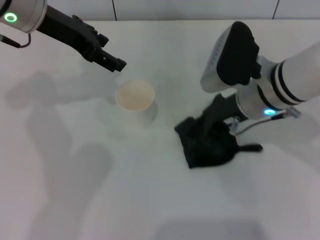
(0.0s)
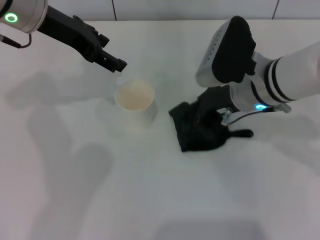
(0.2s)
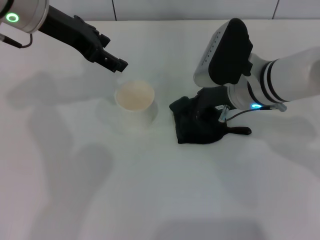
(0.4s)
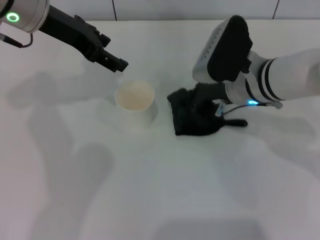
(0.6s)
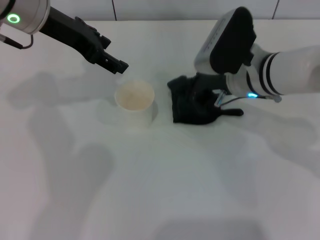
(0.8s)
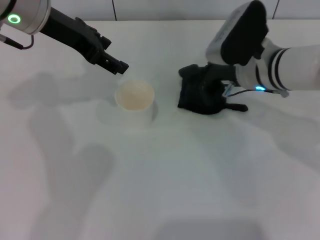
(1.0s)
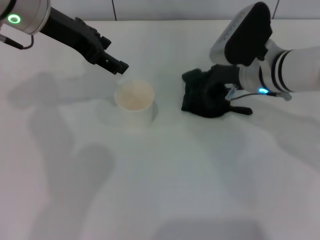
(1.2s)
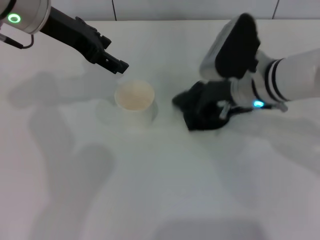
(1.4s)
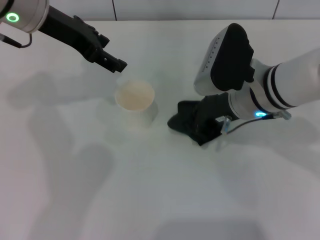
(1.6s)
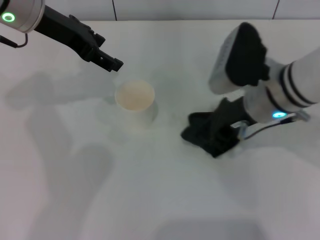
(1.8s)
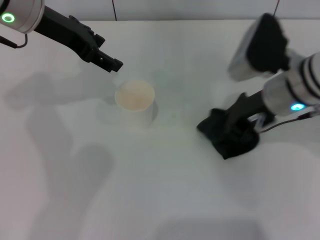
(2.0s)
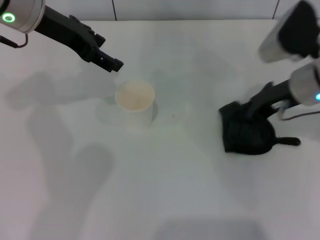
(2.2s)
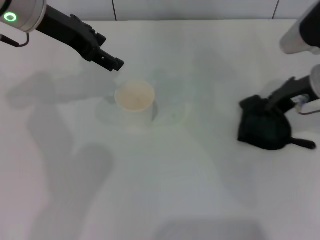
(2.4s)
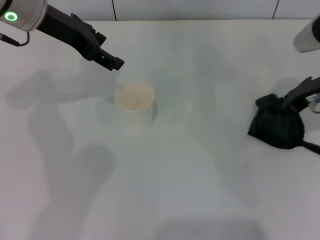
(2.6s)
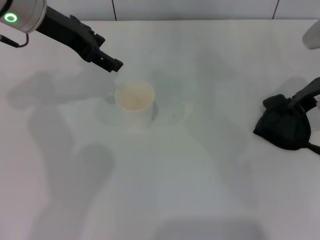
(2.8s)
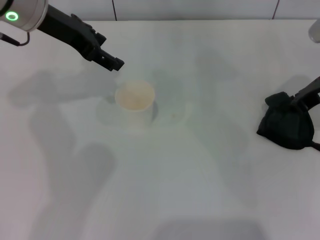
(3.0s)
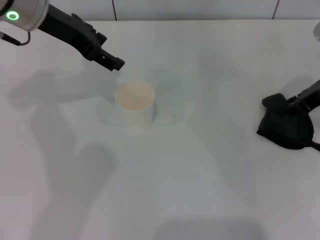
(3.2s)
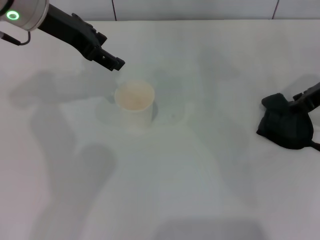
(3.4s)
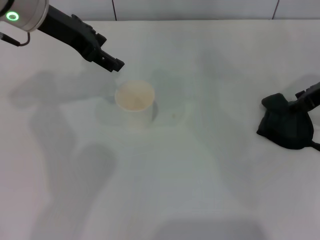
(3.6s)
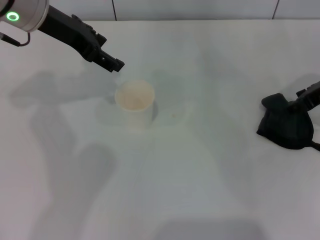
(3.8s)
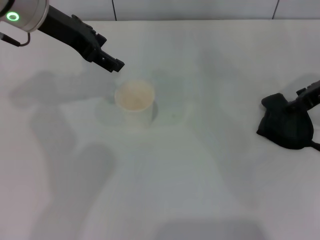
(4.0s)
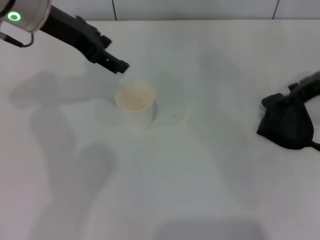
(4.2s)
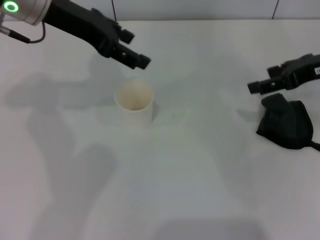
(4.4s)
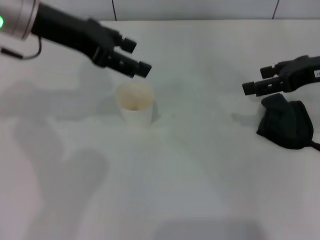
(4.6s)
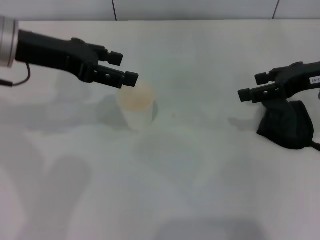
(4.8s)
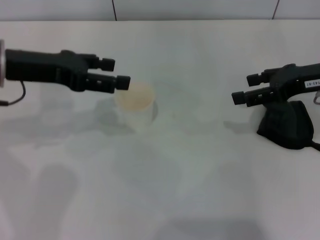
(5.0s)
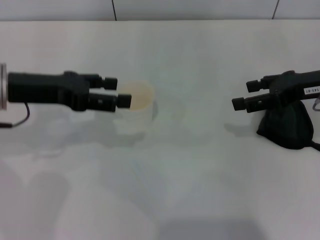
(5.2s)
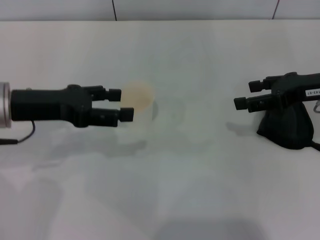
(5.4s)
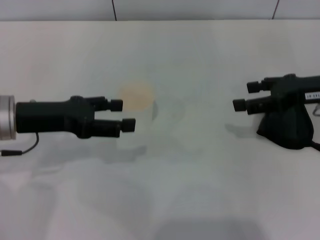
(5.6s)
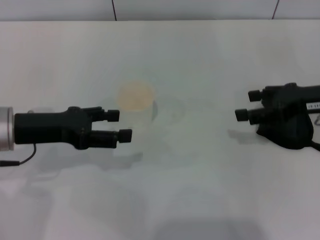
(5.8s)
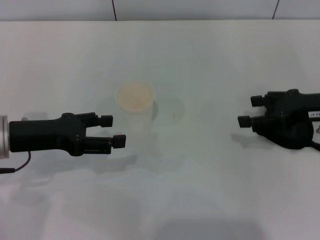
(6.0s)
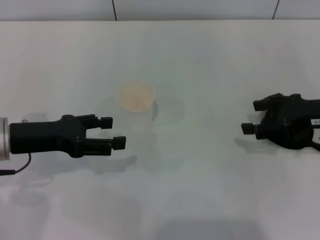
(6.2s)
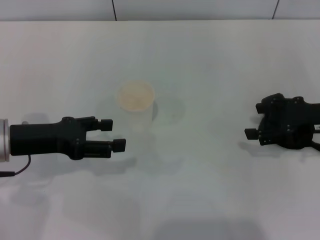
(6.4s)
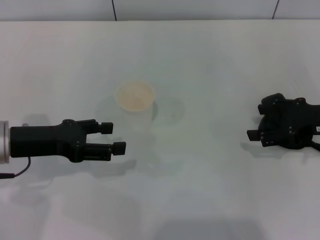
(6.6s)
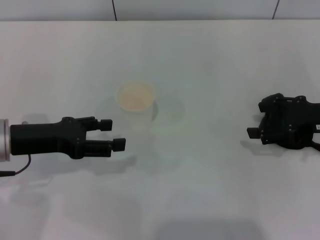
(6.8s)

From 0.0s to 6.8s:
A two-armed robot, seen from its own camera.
Step, from 0.0s to 2.8s: Wipe the stains off the table with the right gripper.
Step, from 3.0s to 4.4s: Place the rag on the table with the right gripper.
From 1.4s to 2.8s: The right gripper goes roughly 15 cm to the right.
From 2.8s to 4.0s: The right gripper opens.
From 4.0s to 5.4s: The left gripper heads backward, downward and to the left, covering about 15 cm.
From 5.4s to 6.8s: The right gripper changes place by about 5 cm.

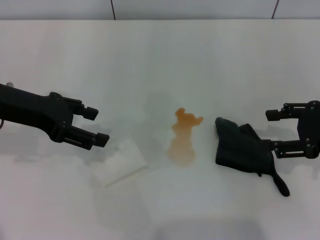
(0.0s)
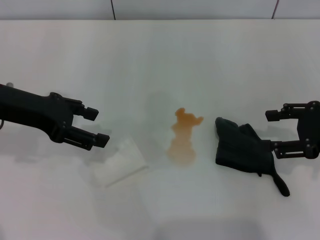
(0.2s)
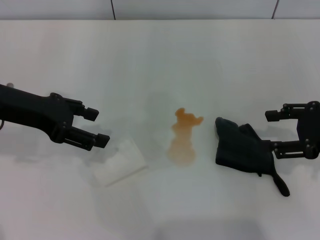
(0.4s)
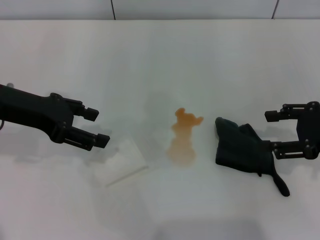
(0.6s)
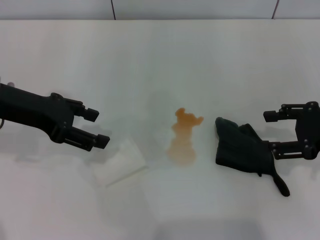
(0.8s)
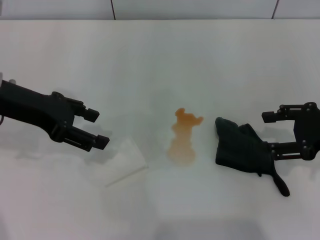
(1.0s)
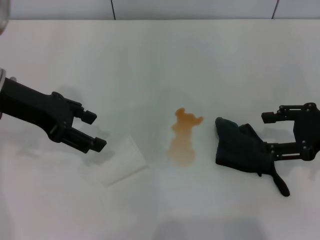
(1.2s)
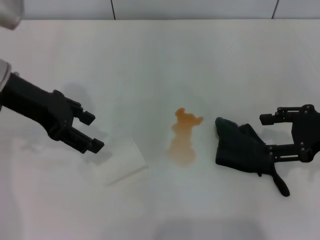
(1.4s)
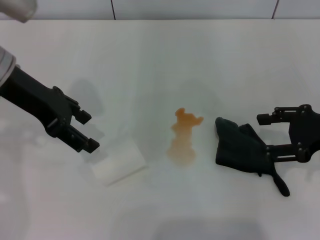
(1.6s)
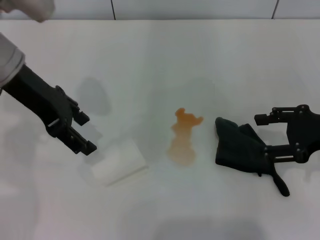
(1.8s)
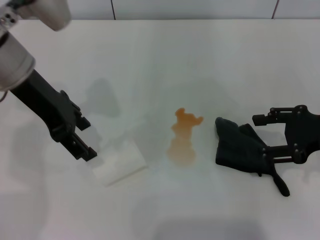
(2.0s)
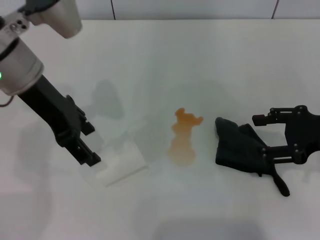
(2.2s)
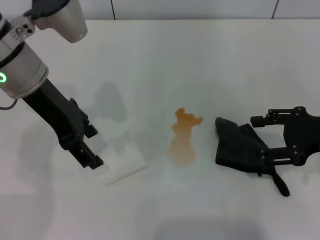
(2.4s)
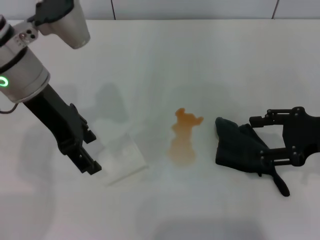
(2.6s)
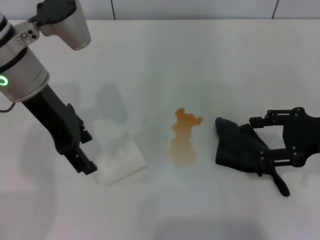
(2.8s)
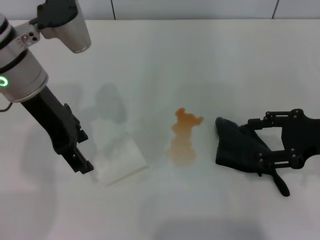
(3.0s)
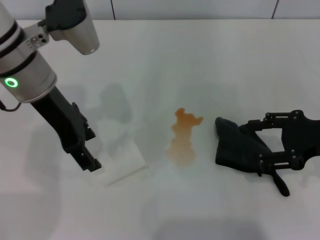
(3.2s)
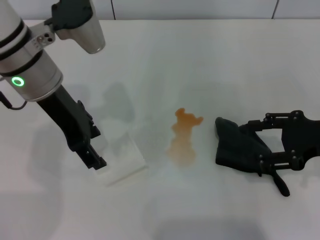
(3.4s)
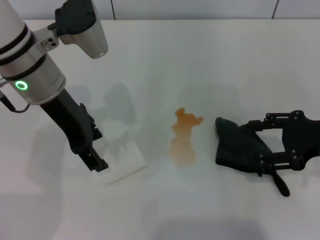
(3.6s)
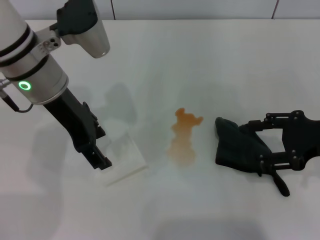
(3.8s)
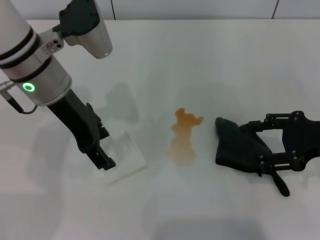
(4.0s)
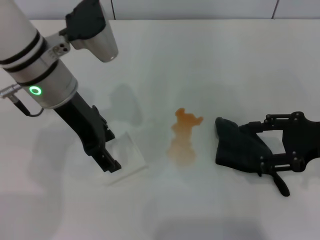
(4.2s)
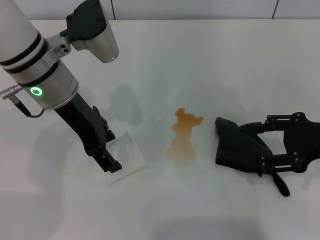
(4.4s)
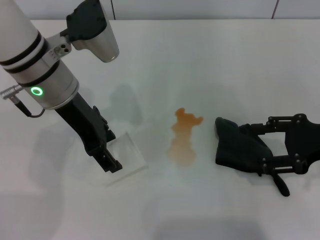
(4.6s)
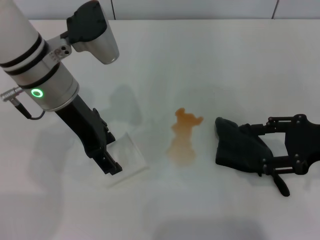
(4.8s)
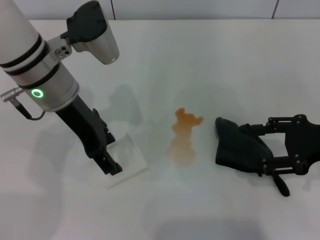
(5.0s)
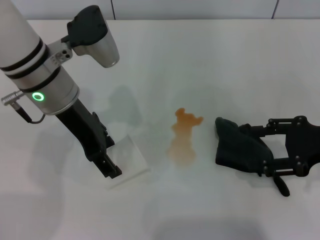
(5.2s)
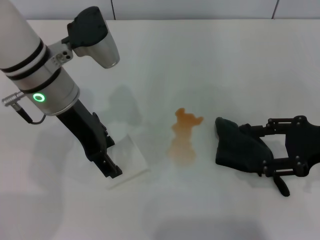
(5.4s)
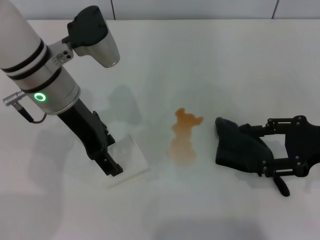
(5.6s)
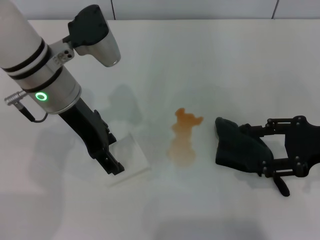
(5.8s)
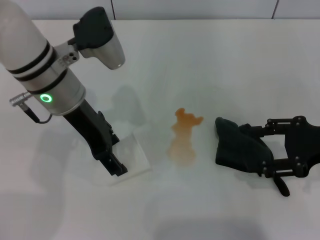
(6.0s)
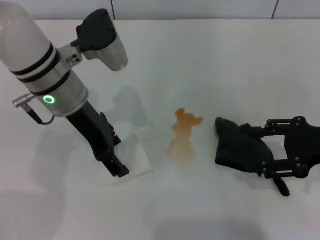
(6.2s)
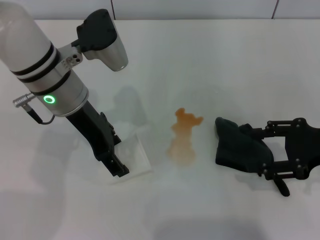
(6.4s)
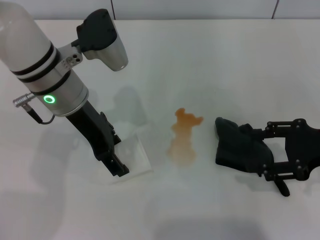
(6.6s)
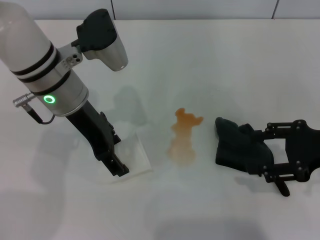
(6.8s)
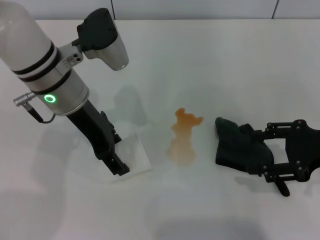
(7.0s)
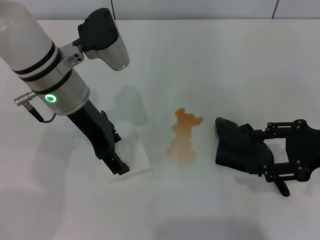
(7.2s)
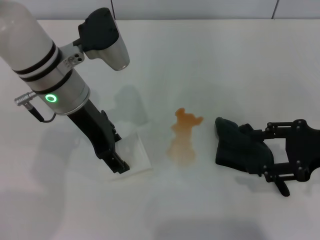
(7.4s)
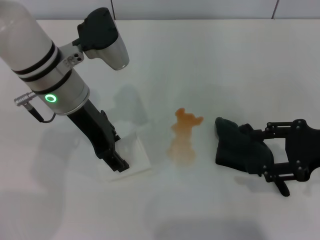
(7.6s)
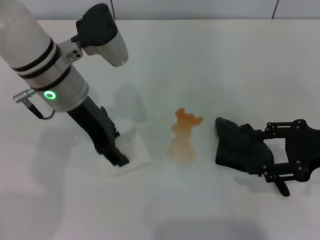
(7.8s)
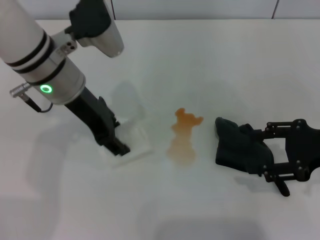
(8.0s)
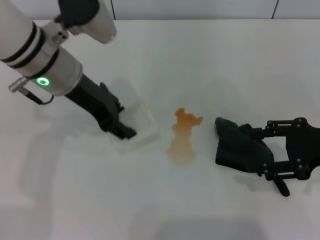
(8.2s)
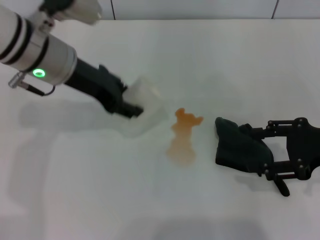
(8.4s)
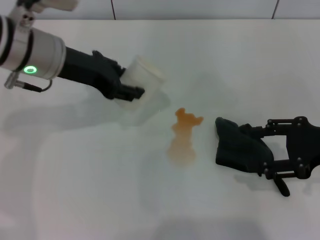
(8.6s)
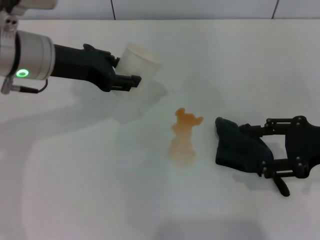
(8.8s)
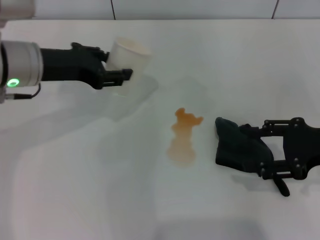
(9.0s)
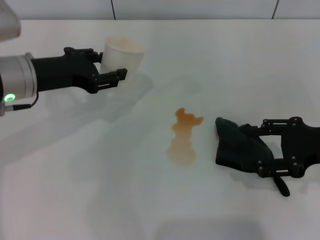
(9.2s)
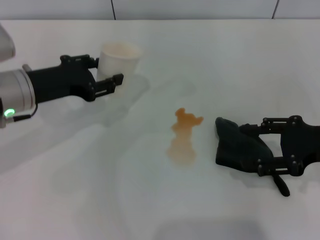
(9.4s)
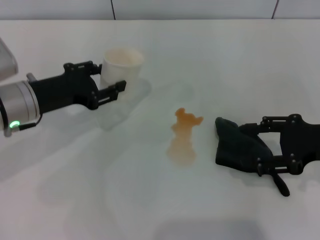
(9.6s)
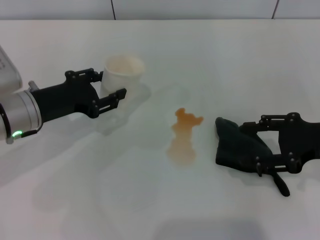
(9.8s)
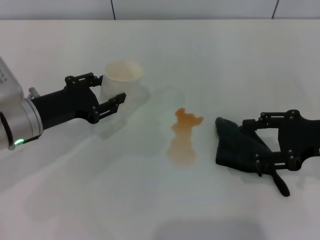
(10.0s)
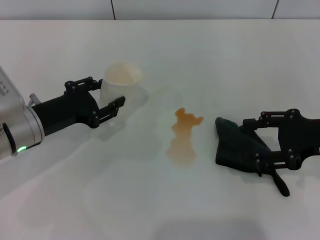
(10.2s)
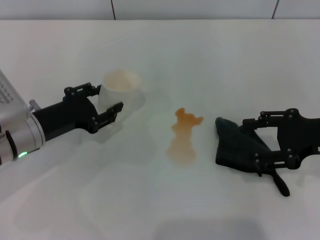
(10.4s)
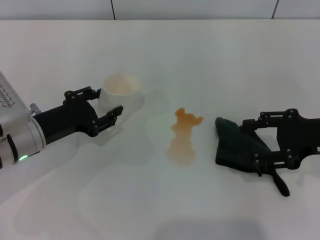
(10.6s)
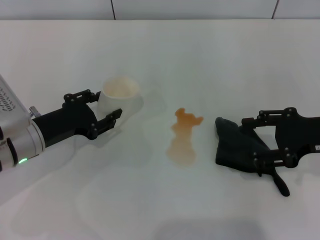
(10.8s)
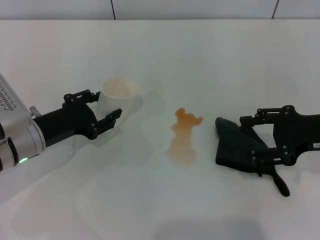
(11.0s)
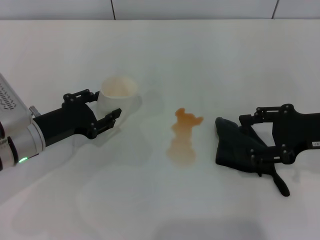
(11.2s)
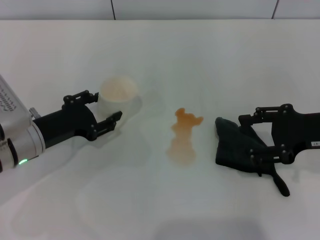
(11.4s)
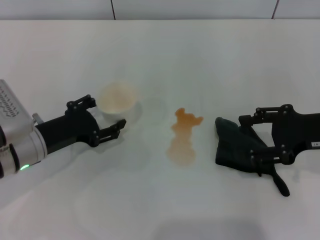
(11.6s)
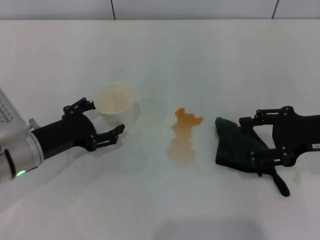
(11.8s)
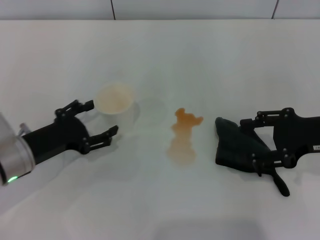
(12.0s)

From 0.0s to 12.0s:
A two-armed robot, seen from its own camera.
Step, from 0.0s to 6.4s: Grasp the paper cup with the left gripper.
Step, from 6.6s to 12.0s: Stand the paper cup upright with the left gripper.
From 0.0s to 1.6s: The left gripper moves some 5 cm.
From 1.6s to 3.0s: There are only small adjustments of the grippers.
From 3.0s to 4.4s: The grippers make only small movements.
From 4.4s to 6.0s: Both grippers stay about where they are.
From 6.0s to 7.6s: The left gripper closes its fingers.
From 7.6s to 9.0s: The left gripper heads to the left, covering approximately 5 cm, and closes its fingers.
From 9.0s to 10.4s: The left gripper moves downward, some 10 cm.
From 10.4s to 12.0s: The left gripper opens.

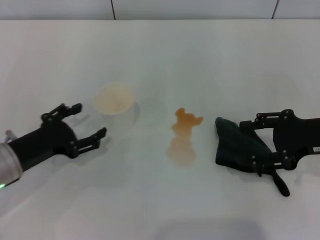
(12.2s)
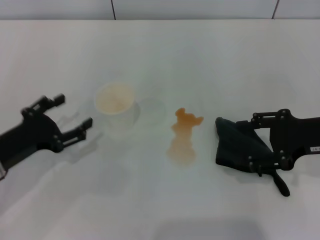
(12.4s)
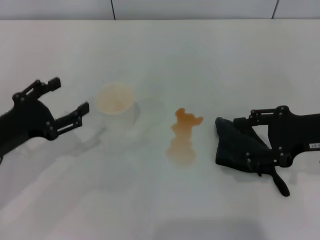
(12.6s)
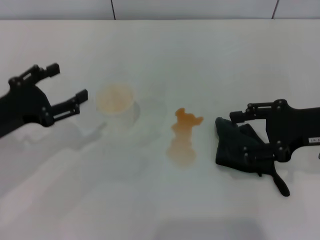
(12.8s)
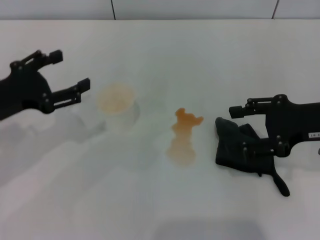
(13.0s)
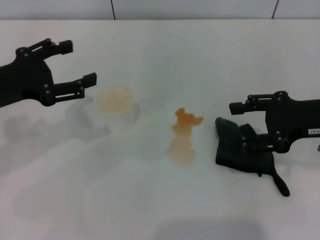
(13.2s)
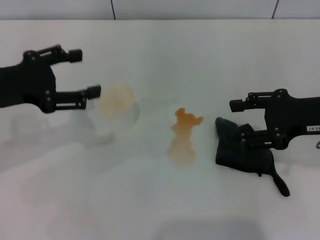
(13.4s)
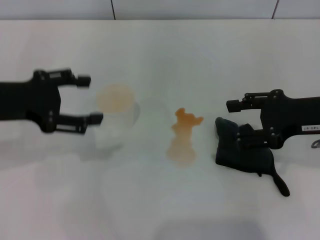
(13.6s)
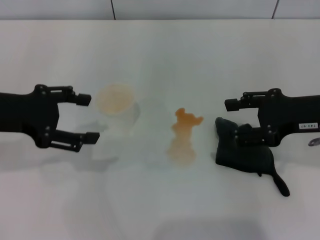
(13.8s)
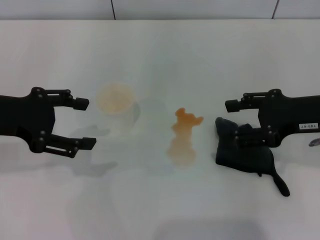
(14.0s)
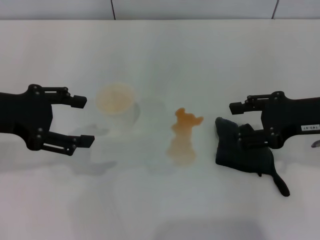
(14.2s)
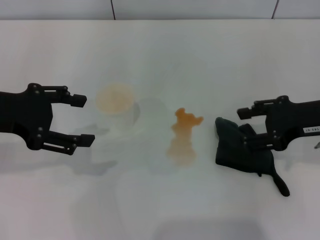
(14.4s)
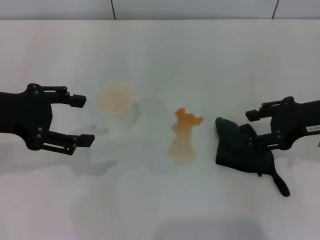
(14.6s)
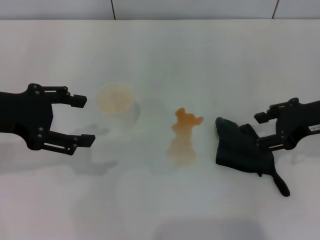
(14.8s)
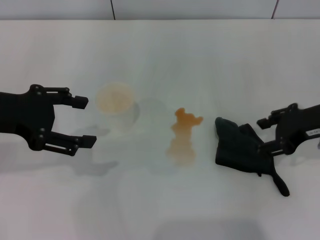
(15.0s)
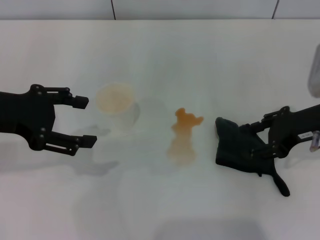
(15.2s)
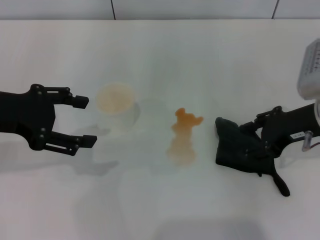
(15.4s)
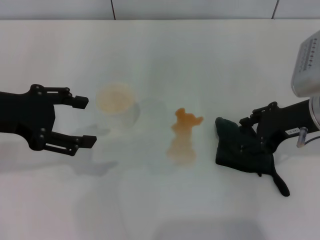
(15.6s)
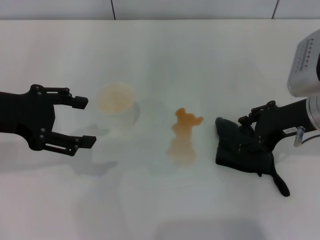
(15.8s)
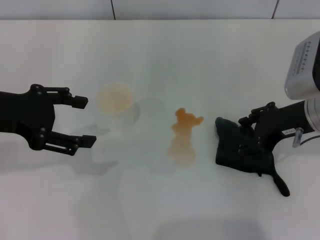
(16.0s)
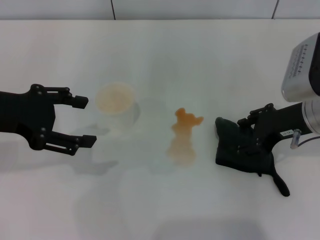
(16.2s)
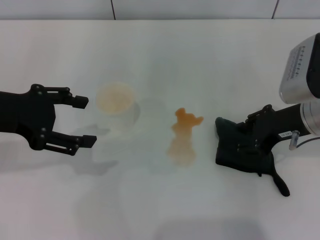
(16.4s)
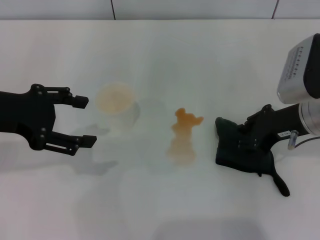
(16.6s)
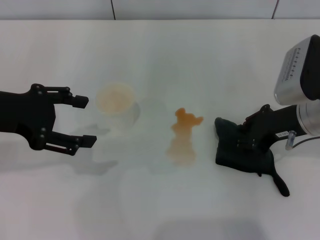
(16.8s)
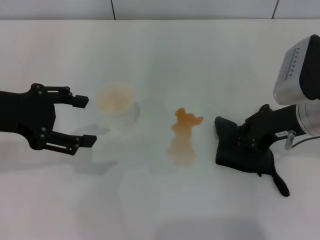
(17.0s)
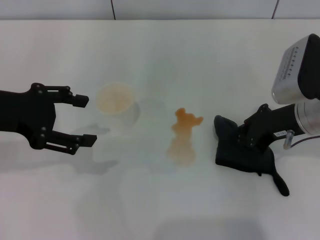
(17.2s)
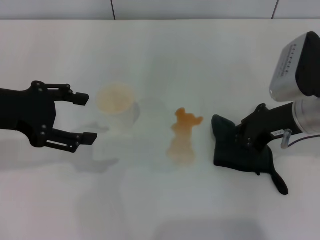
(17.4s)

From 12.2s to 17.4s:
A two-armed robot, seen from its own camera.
Step, from 12.2s to 17.0s: Grasp the rag with the right gripper.
From 12.2s to 14.0s: The left gripper travels upward by roughly 15 cm.
From 15.6s to 17.4s: The right gripper closes its fingers.
